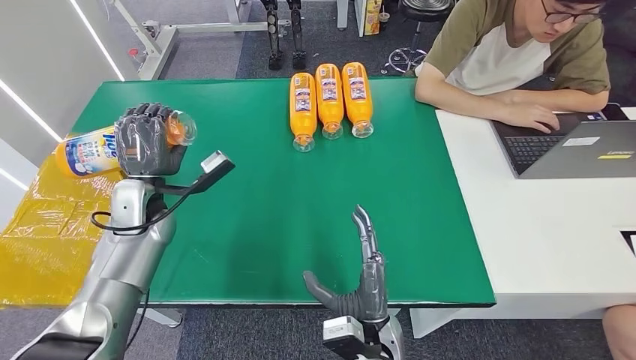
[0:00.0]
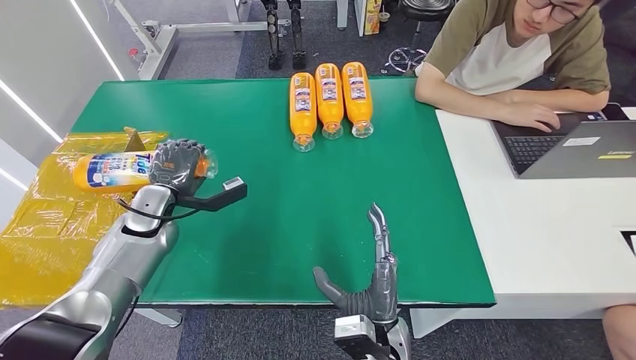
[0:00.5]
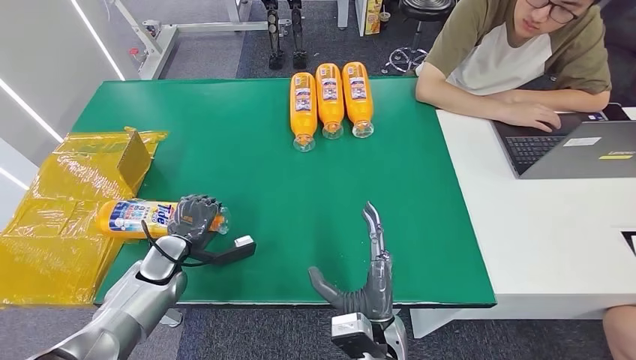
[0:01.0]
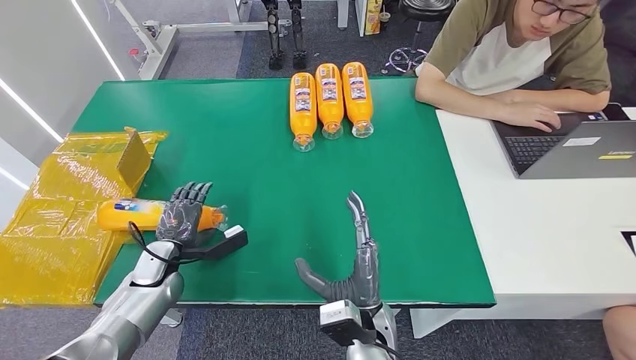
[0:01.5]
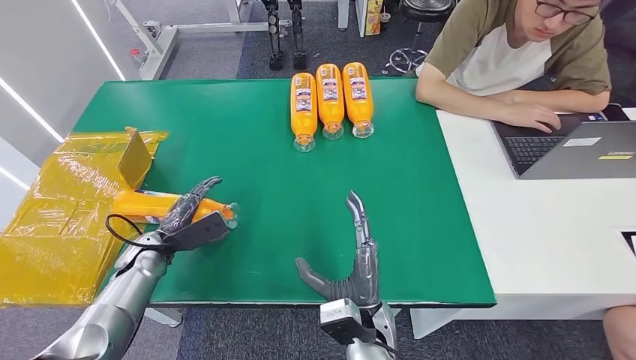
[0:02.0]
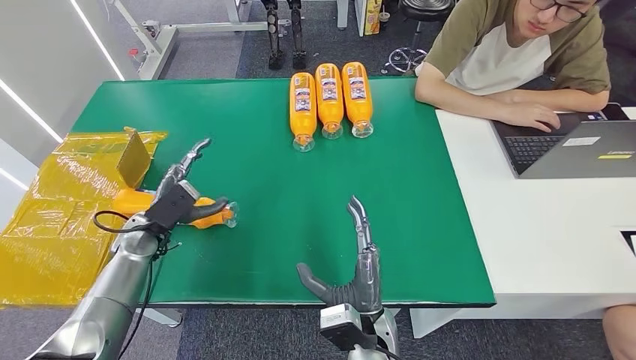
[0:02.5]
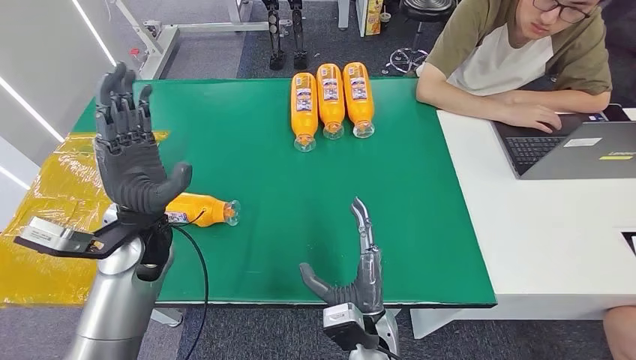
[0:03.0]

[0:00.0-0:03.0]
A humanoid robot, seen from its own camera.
Step, 0:00.0 to 0:03.0: Turn the bottle to the front side.
0:00.0 to 0:01.5: The left hand heads downward and backward, covering roughly 15 cm.
0:01.5 to 0:03.0: The left hand shifts some 20 cm upward and to the right.
